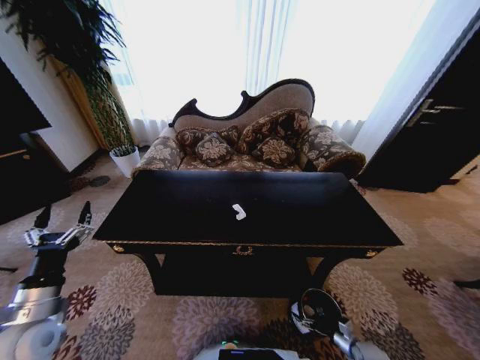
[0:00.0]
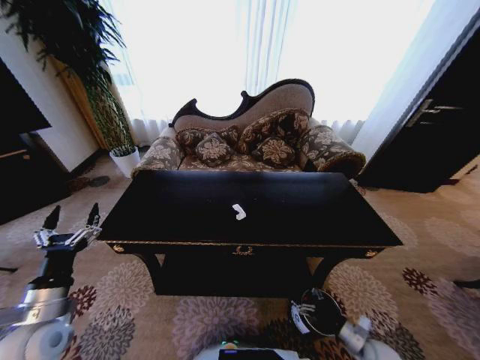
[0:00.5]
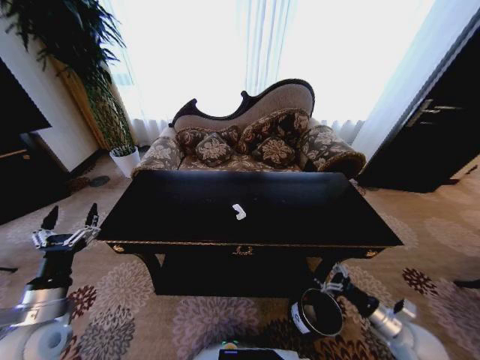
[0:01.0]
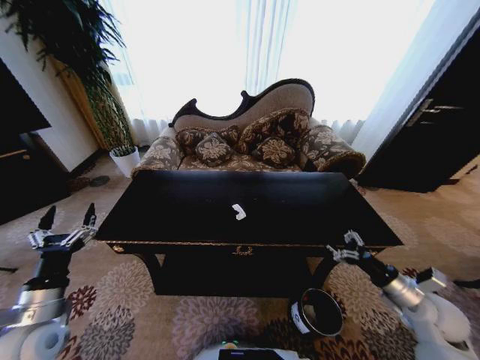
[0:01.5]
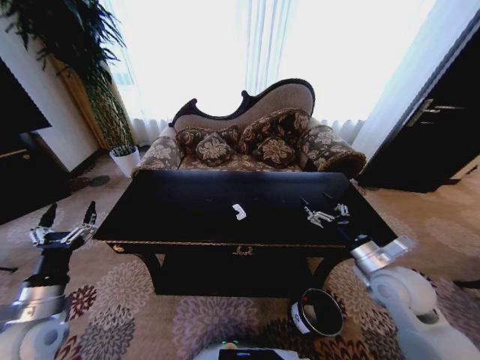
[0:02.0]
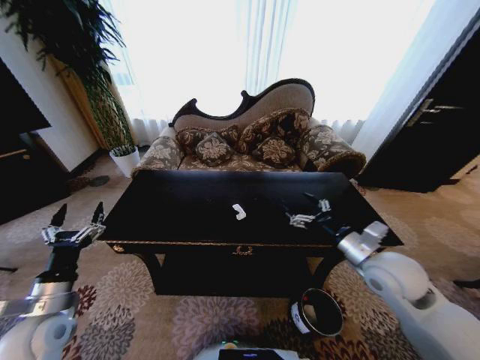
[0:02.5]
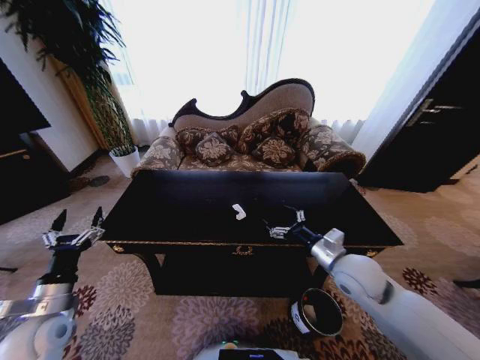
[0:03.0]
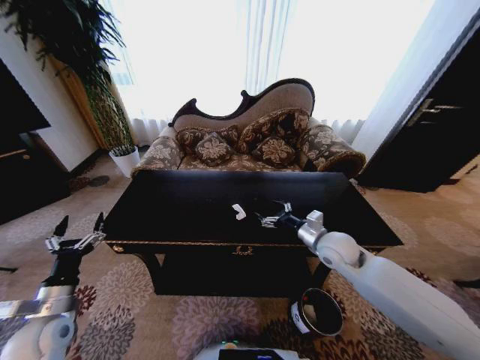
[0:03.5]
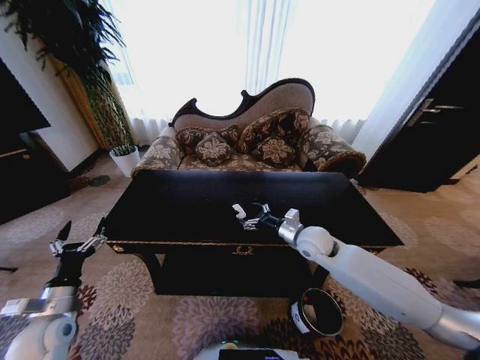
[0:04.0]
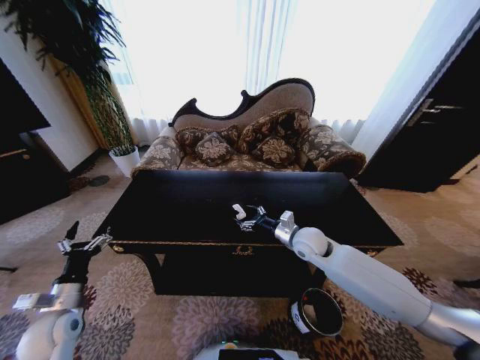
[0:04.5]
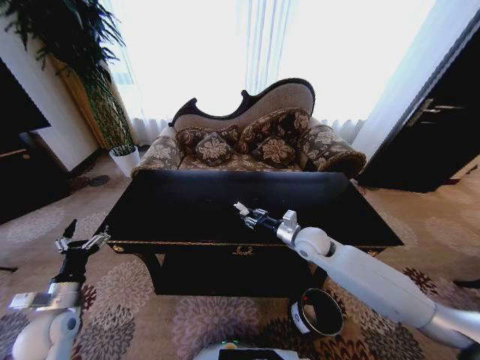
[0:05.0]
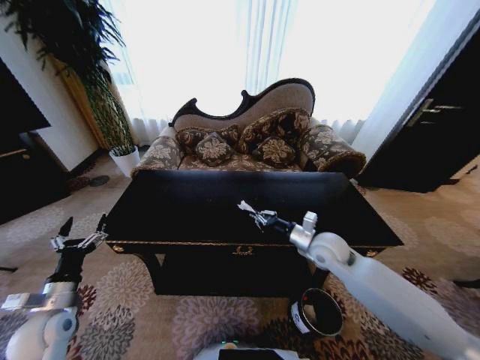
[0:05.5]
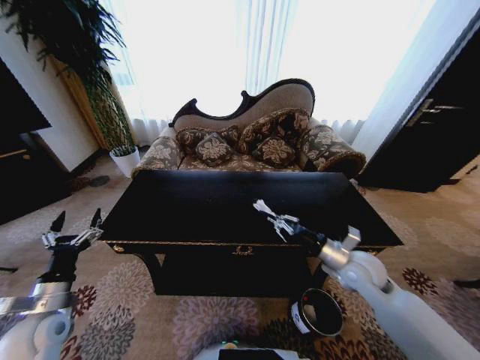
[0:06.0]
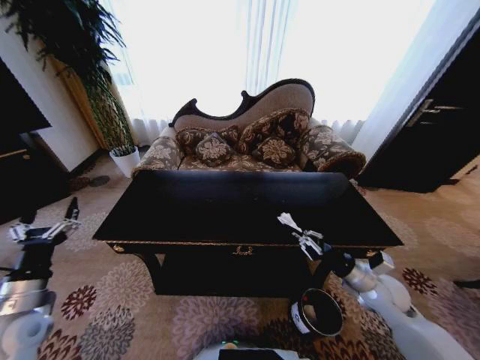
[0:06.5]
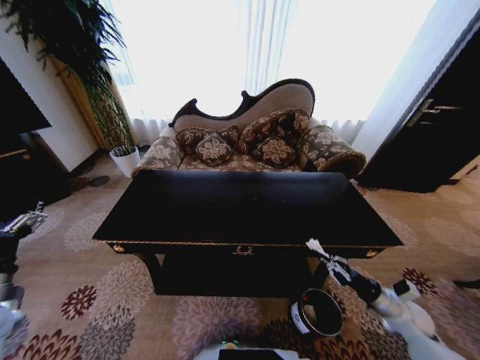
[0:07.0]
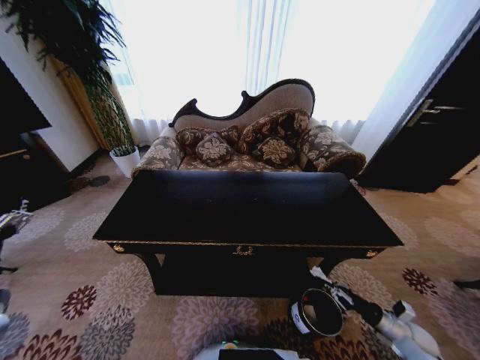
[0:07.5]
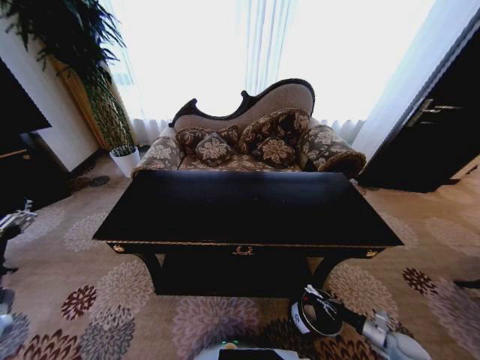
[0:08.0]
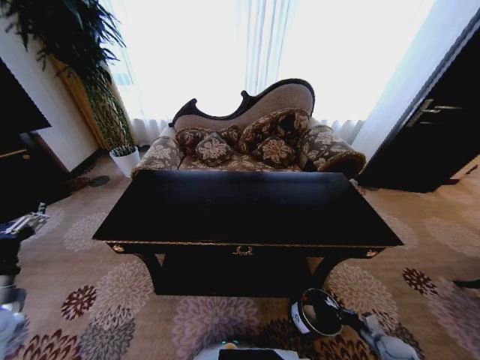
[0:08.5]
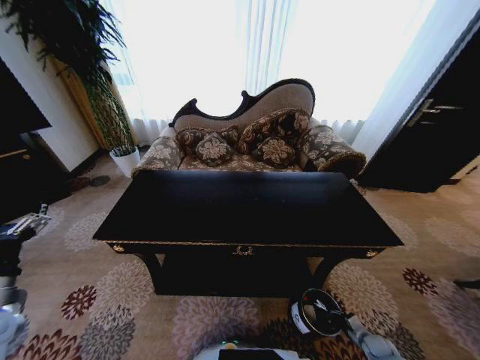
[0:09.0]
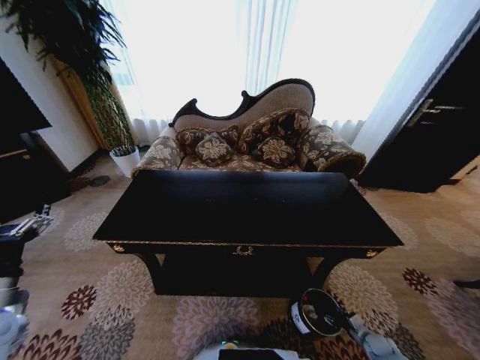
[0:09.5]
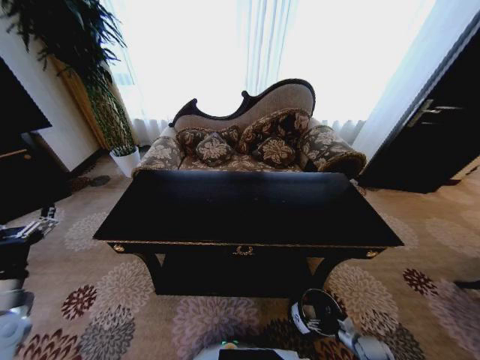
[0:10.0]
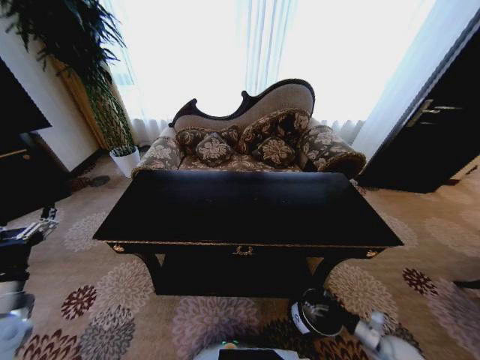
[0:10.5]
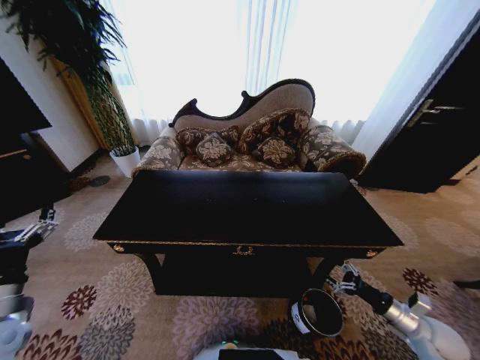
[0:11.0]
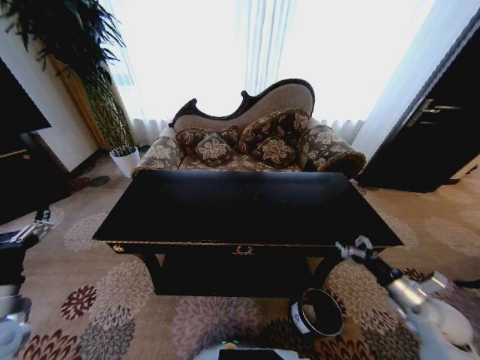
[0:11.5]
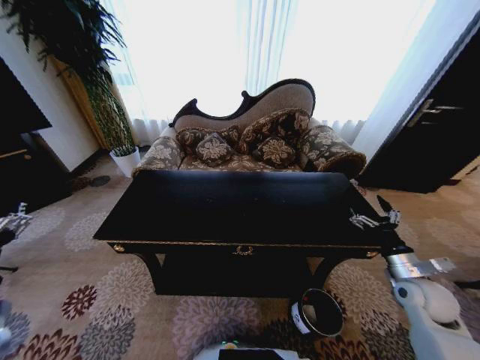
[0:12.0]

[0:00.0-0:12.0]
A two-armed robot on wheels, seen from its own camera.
Task of the whole recording: Move to the front of the table and place the trash on the table into the trash bin.
0:00.0 to 0:02.0: The right gripper is displaced upward by approximately 40 cm.
0:02.0 to 0:04.0: The left gripper shifts roughly 5 cm downward. Meanwhile the right gripper travels forward and to the left by some 20 cm.
0:04.0 to 0:06.0: The right gripper travels backward and to the right by roughly 10 cm, and closes.
0:06.0 to 0:08.0: The left gripper heads to the left and upward, covering some 10 cm. The right gripper travels downward, to the right and backward by about 40 cm.
0:08.0 to 0:10.0: The right gripper travels to the left by roughly 10 cm, and opens up.
0:10.0 to 0:12.0: The right gripper heads upward, covering approximately 30 cm; the left gripper ends up roughly 5 cm from where it was.

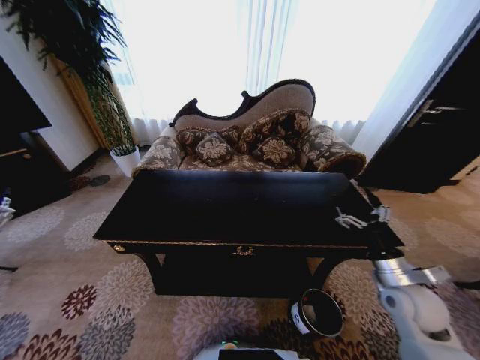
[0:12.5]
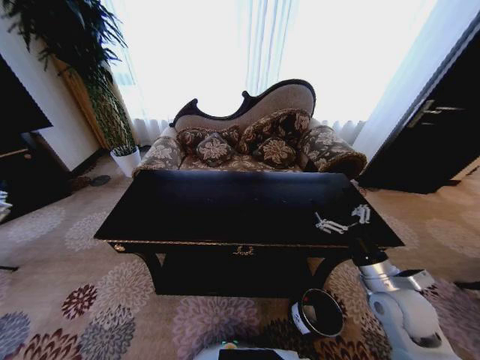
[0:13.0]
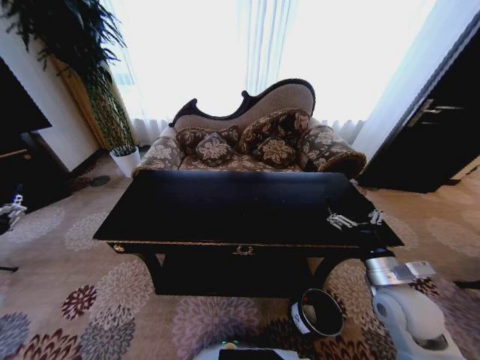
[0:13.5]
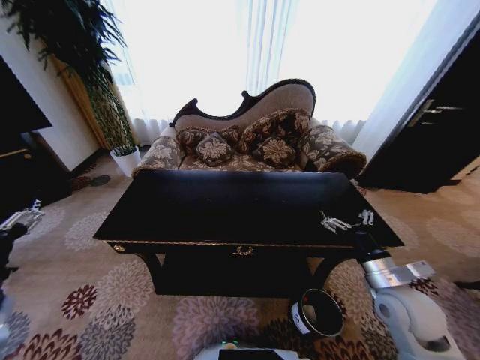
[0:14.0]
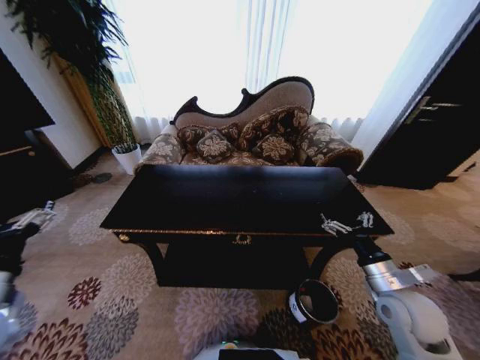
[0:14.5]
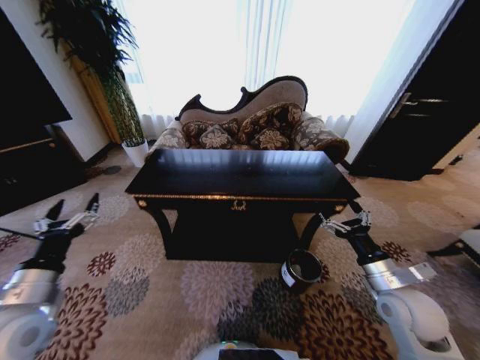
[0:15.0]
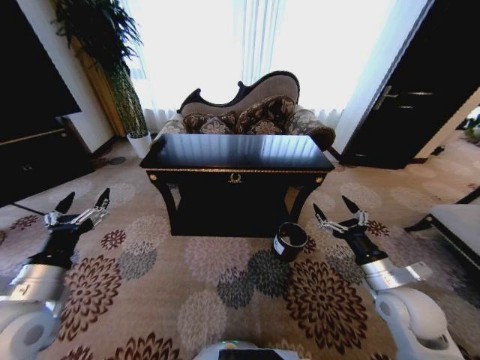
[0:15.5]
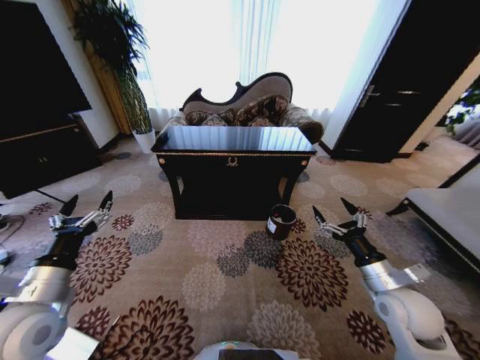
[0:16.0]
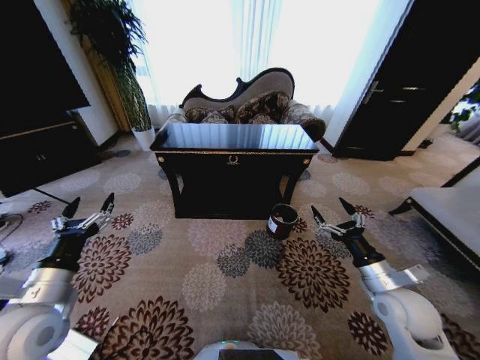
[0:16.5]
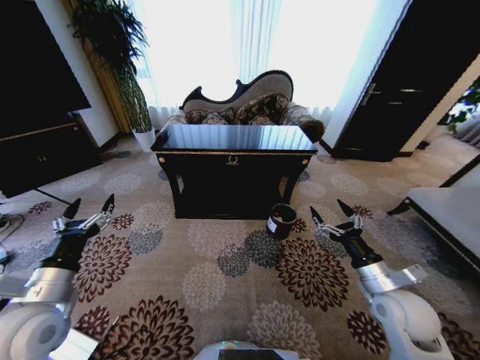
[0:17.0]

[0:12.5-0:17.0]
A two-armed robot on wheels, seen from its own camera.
Task of the whole recording: Move to the front of the table and place the trash on the table into the trash bin.
0:12.5 to 0:14.5: The left gripper is displaced to the right by some 5 cm.
0:14.5 to 0:17.0: The left gripper travels to the right by some 10 cm.

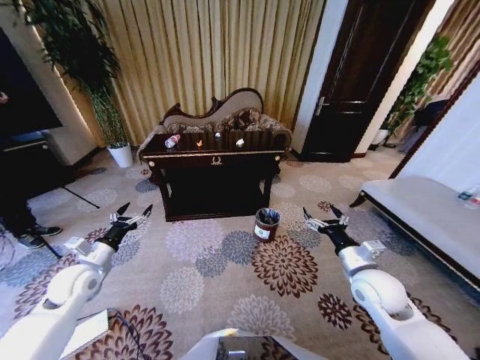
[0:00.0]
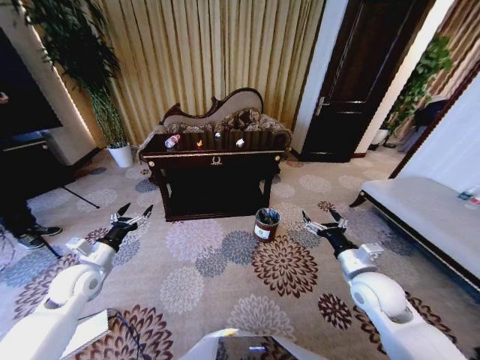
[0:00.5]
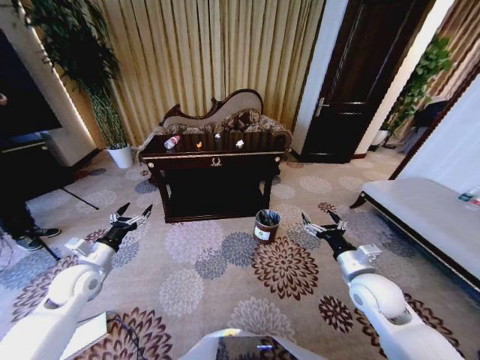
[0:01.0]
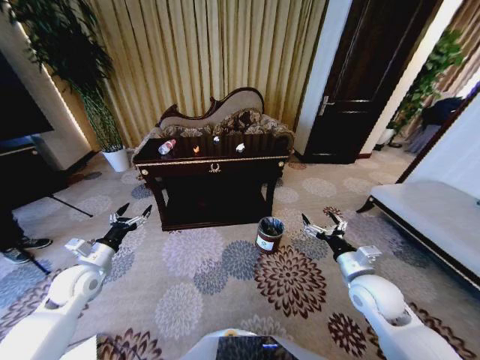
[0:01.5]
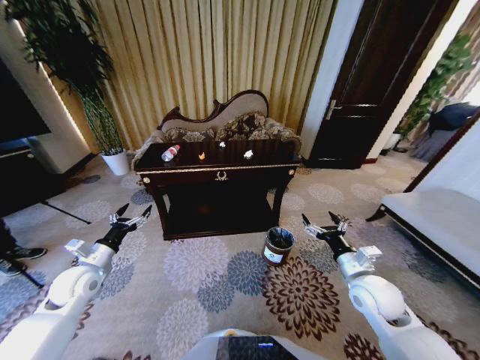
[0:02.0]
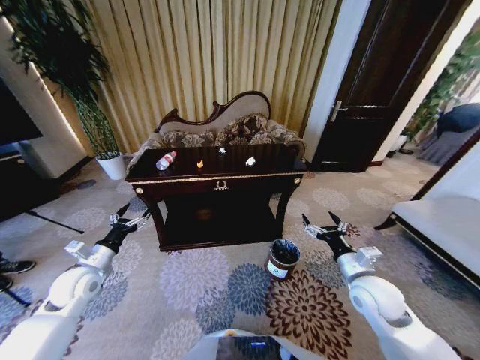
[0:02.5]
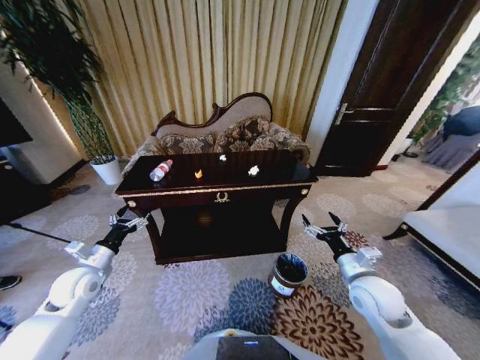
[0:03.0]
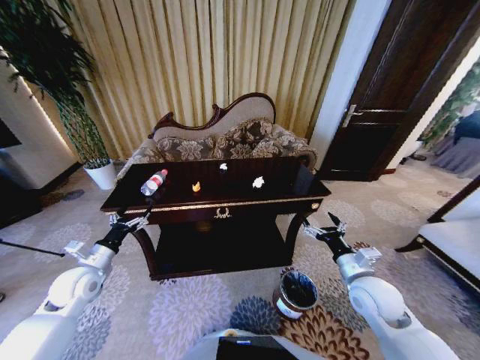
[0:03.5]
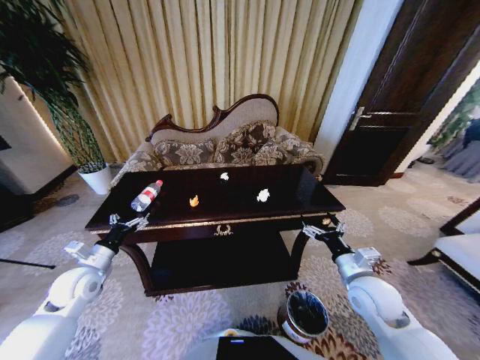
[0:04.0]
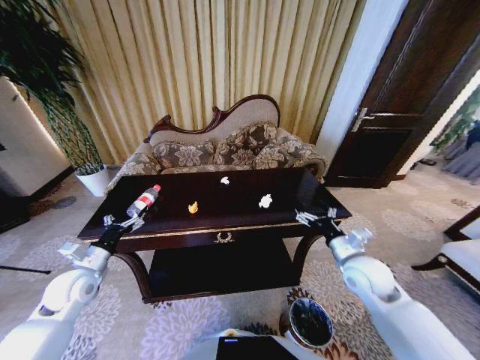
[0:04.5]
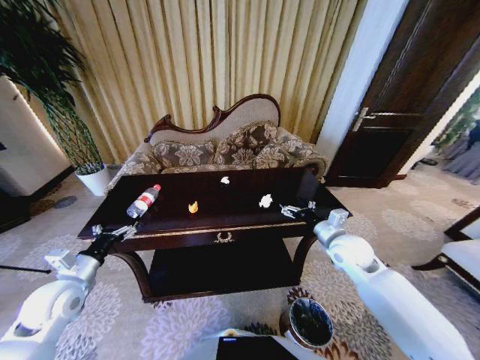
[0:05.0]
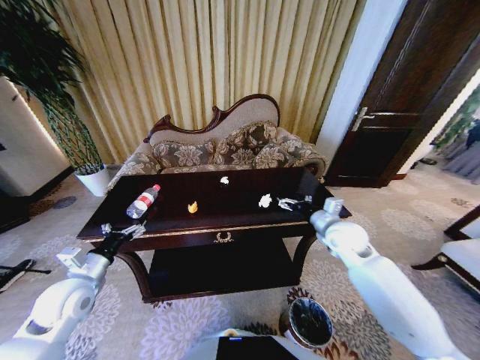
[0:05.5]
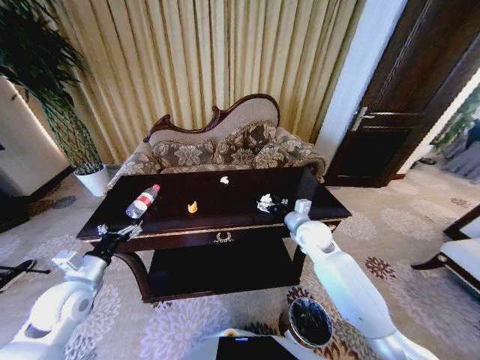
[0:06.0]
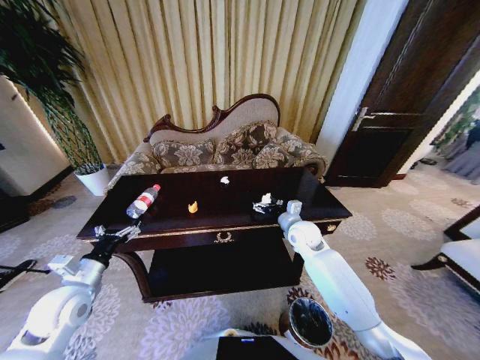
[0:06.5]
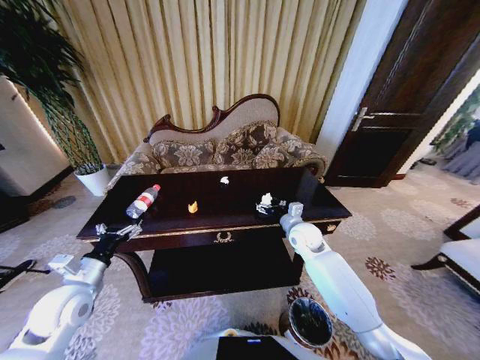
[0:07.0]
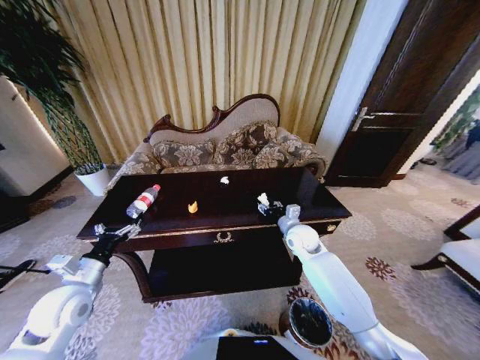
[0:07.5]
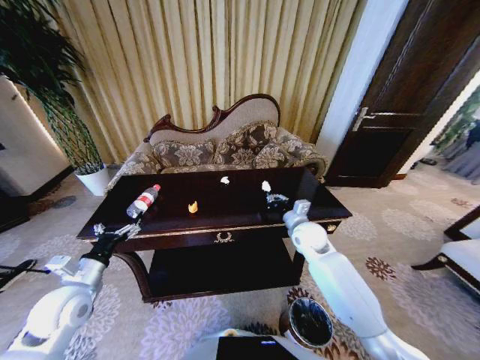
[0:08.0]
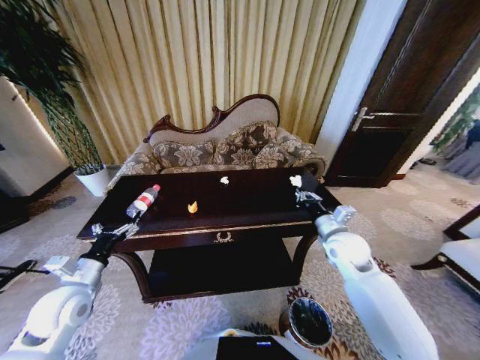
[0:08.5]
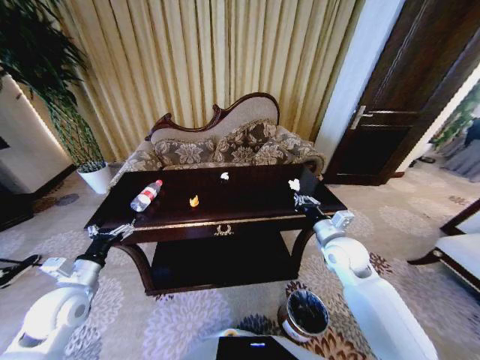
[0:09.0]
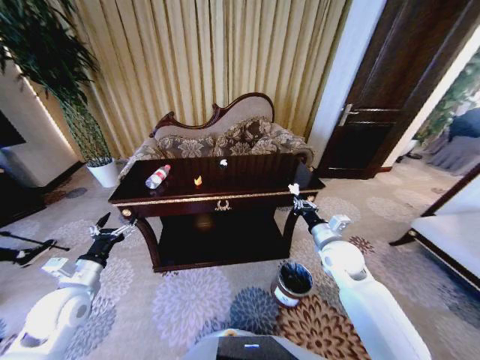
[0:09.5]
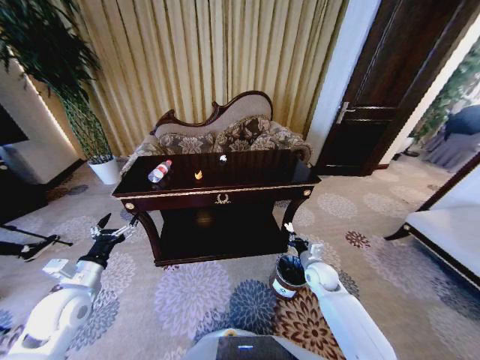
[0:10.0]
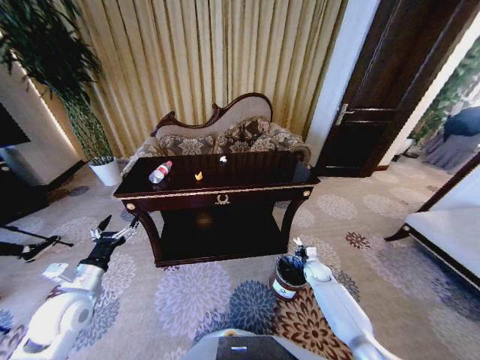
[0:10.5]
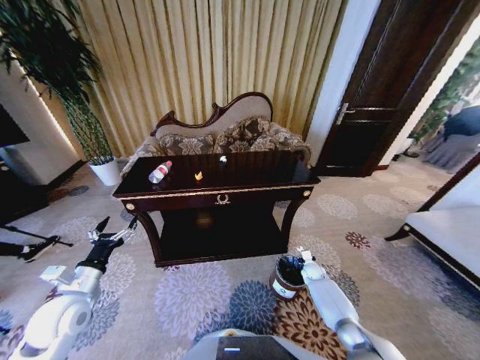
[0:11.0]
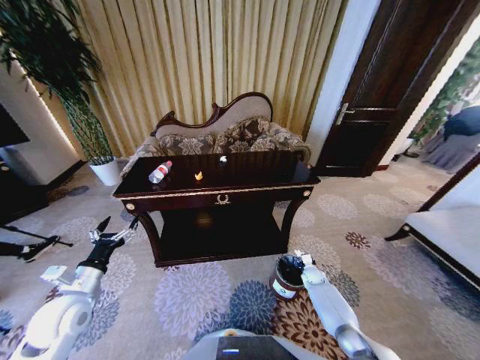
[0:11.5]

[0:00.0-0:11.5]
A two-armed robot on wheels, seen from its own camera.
Task of the whole recording: Move to the front of the table and place the trash on the table into the trash bin.
0:04.0 to 0:06.0: The left gripper ends up approximately 5 cm from where it was. The right gripper moves forward and to the left, about 20 cm.
0:06.0 to 0:07.5: The right gripper moves some 5 cm, and closes.
0:07.5 to 0:09.5: The right gripper is displaced backward and to the right by approximately 10 cm, and closes its fingers.
0:09.5 to 0:11.5: The right gripper heads downward, covering approximately 30 cm, and opens.
